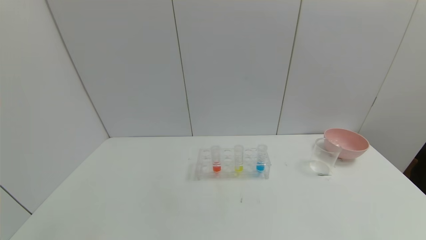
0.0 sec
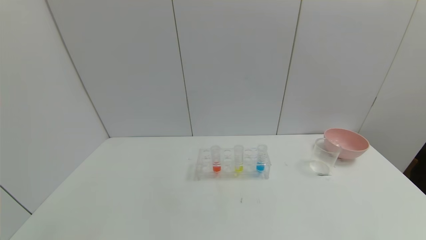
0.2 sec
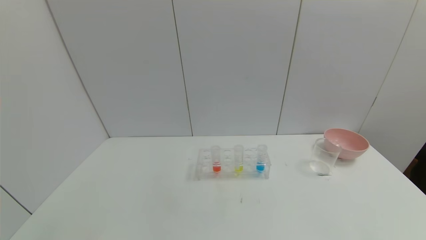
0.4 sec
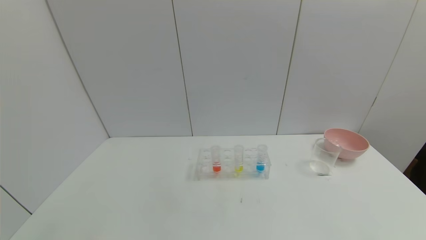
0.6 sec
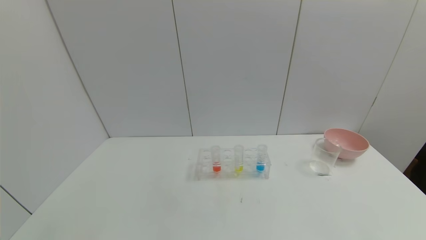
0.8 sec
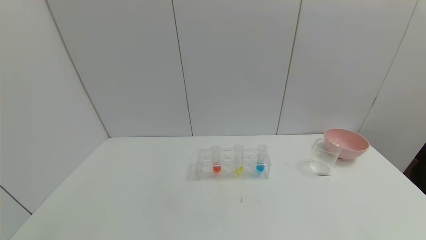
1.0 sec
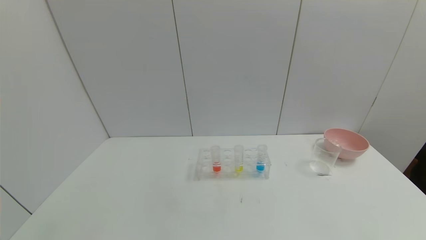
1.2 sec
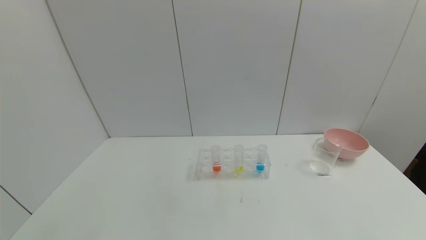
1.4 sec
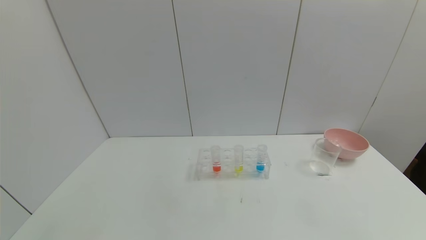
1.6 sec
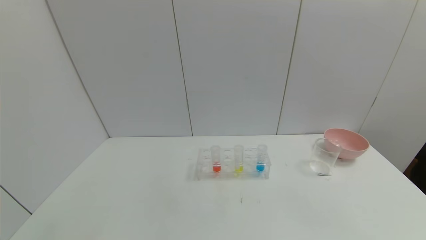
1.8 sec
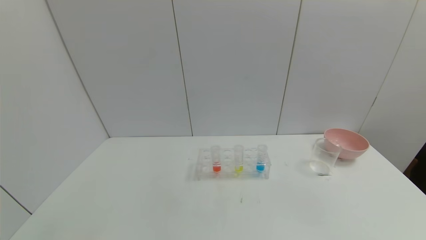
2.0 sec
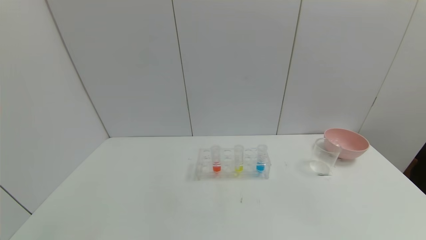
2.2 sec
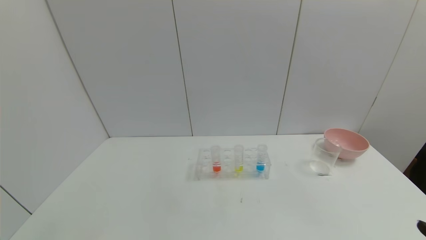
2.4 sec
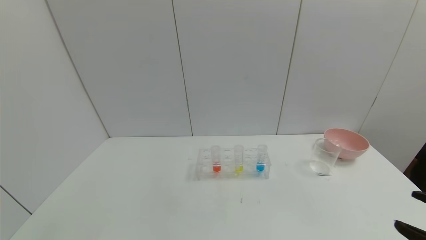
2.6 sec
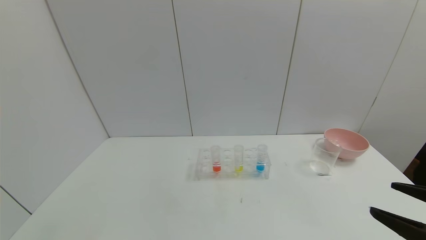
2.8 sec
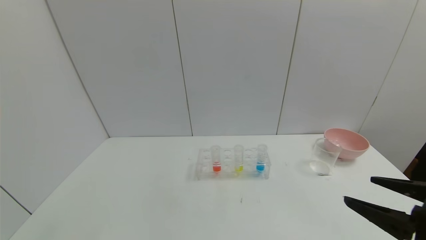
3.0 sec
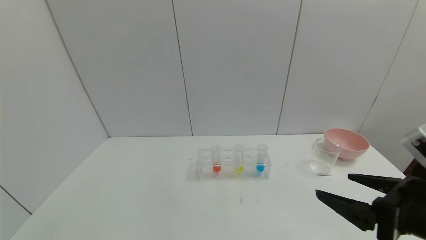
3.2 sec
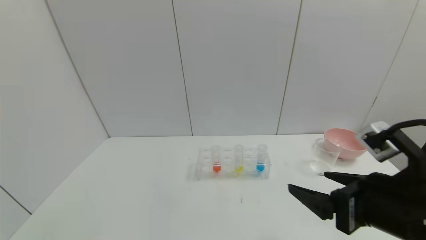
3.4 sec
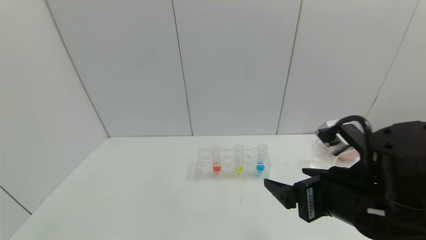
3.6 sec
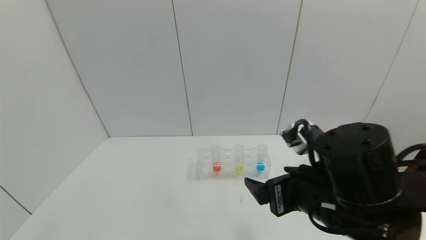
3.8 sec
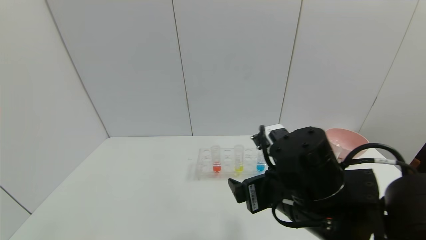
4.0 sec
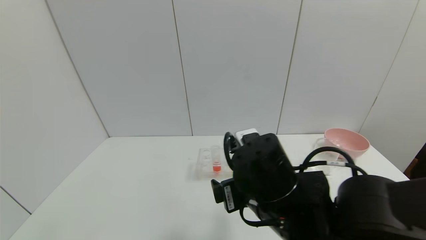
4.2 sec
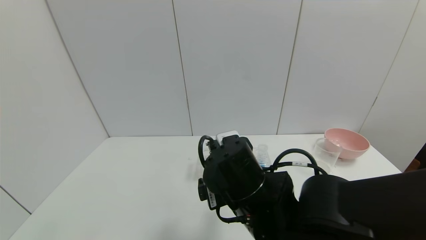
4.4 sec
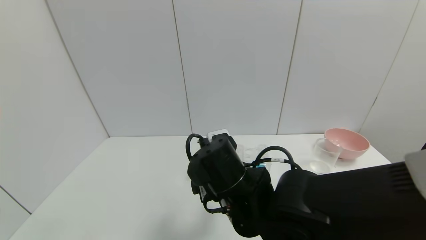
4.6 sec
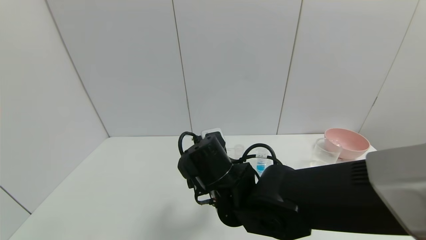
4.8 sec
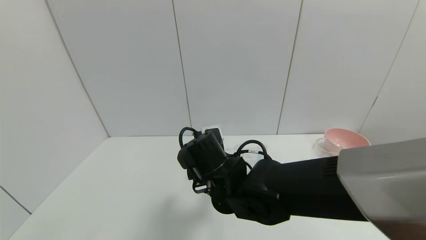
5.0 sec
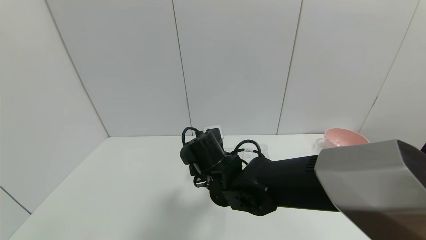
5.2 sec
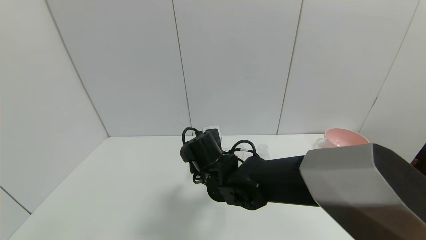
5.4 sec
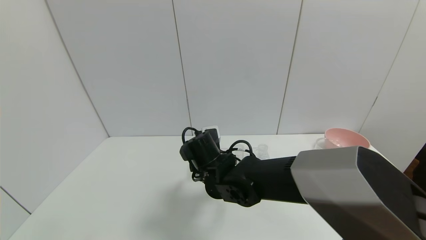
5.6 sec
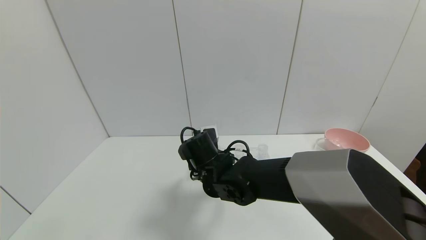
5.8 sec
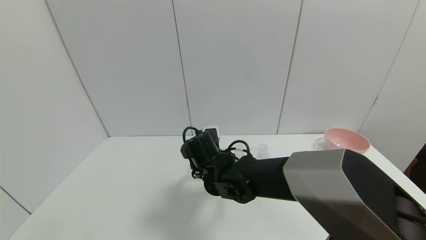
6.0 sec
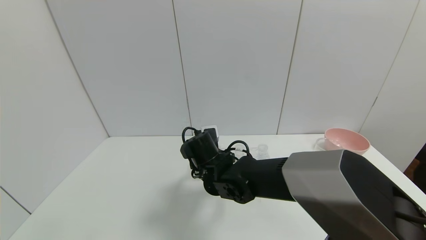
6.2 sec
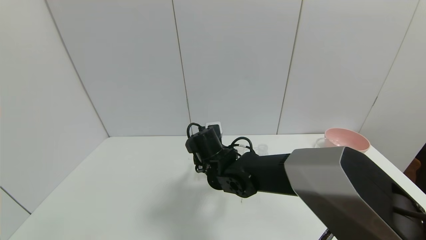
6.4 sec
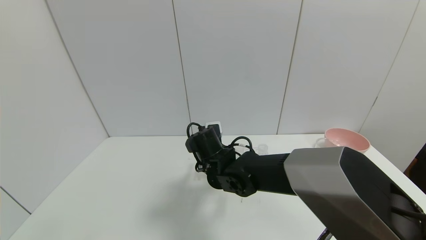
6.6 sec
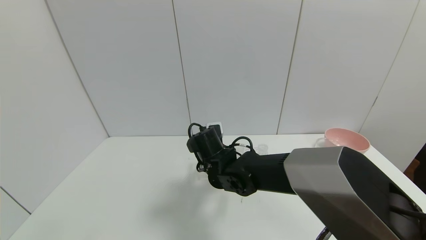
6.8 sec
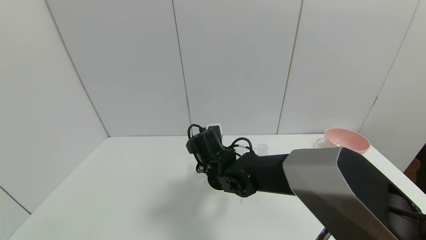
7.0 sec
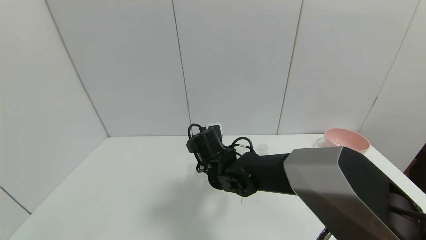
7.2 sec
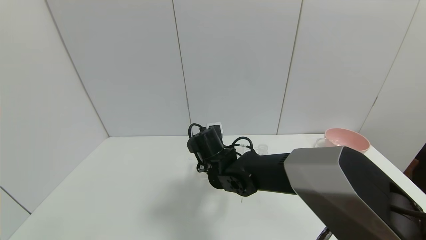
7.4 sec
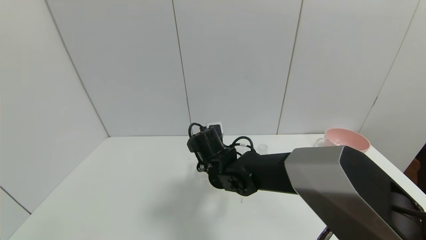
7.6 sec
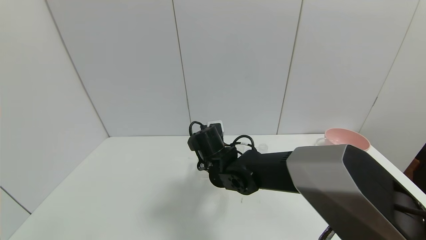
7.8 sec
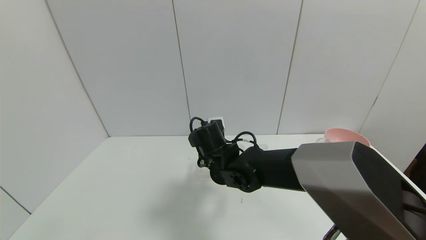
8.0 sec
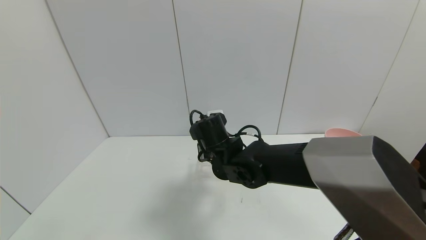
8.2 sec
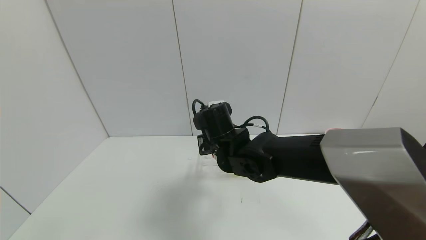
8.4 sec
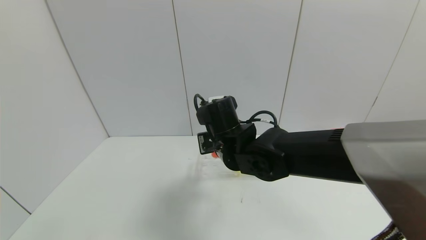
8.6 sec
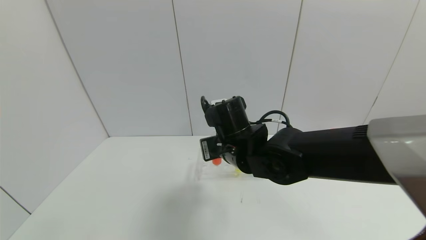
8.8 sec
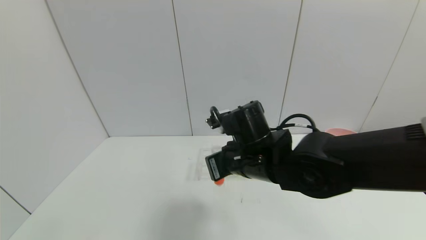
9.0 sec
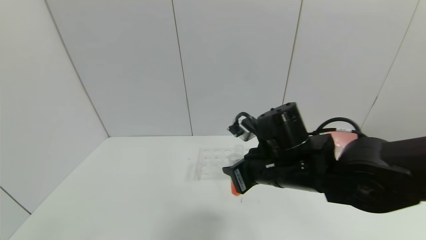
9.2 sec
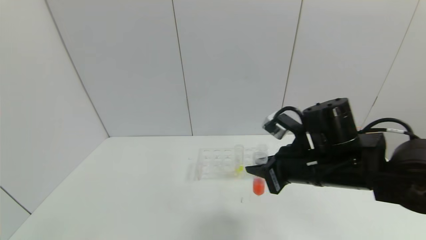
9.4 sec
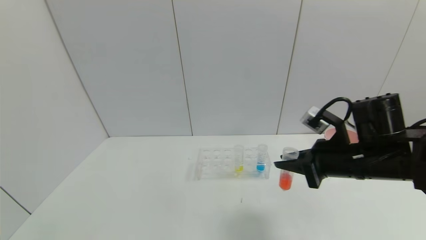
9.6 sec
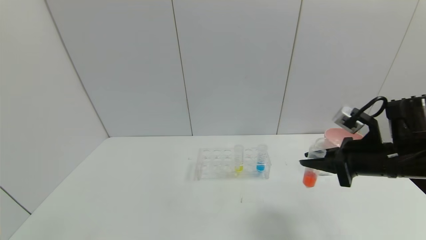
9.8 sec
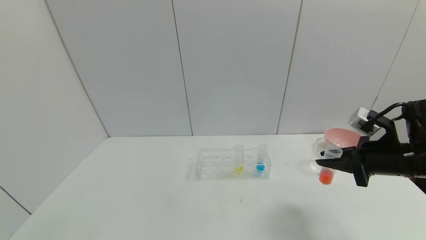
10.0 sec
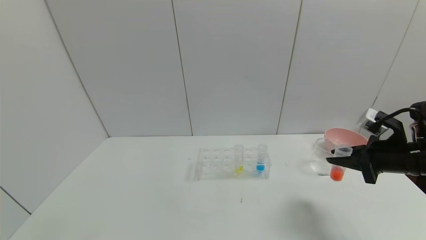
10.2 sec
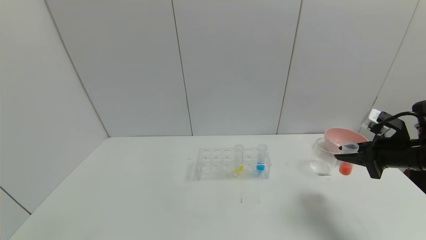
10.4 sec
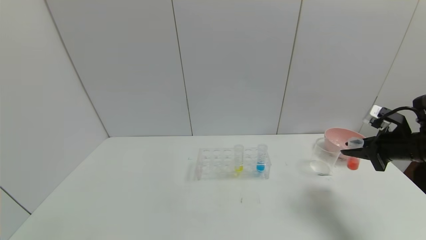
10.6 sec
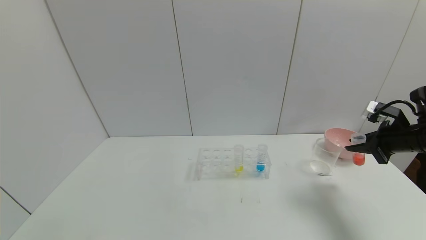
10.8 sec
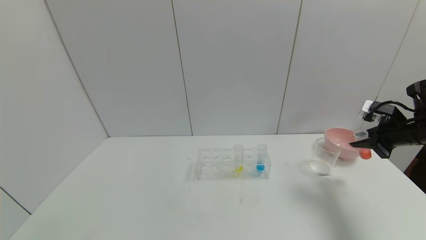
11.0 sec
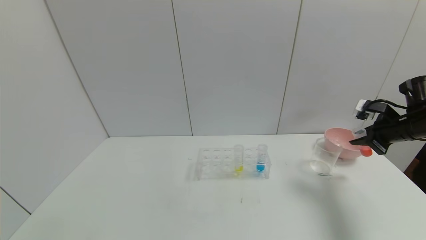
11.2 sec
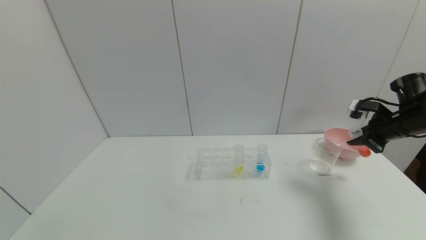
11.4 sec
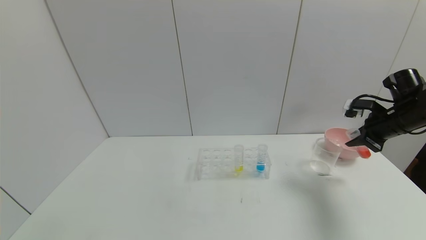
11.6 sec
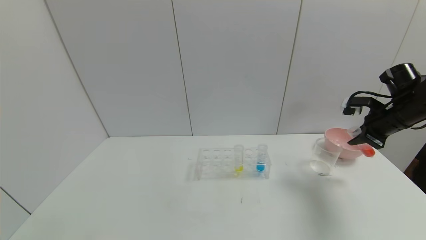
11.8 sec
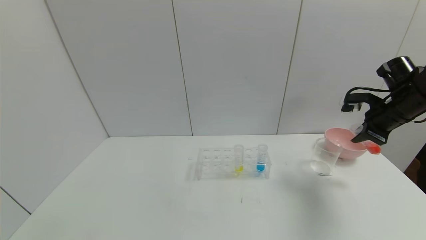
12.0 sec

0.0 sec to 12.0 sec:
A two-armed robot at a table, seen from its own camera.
Task of the whole recording: pick up the test tube with yellow pigment and the test tube with red pigment by grippers and pour them into the beaker.
Step, 0.0 sec to 7.0 sec: Grasp the red reagent with the right gripper.
1.6 sec to 3.0 sec: The right gripper is displaced forward, upward and to the left by some 20 cm.
3.0 sec to 4.4 sec: The right gripper heads to the left, covering roughly 25 cm.
4.4 sec to 6.0 sec: The right gripper goes some 15 cm forward, downward and to the left.
6.0 sec to 7.6 sec: The right gripper closes its fingers.
7.6 sec to 9.0 sec: The right gripper travels upward, backward and to the right by some 15 cm.
9.0 sec to 10.4 sec: The right gripper goes some 30 cm to the right.
10.4 sec to 12.0 sec: The right gripper travels forward and upward by roughly 10 cm.

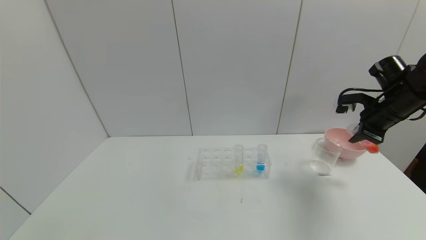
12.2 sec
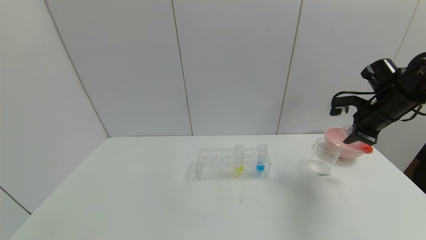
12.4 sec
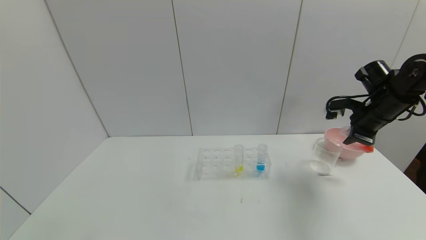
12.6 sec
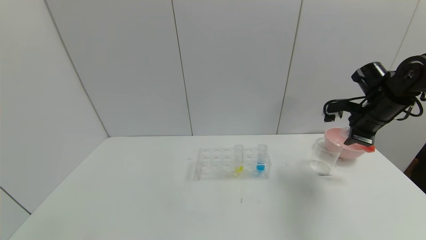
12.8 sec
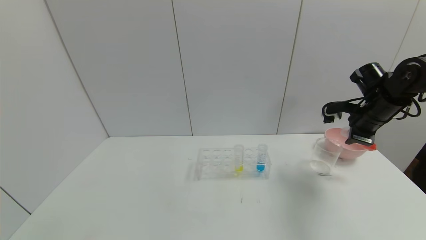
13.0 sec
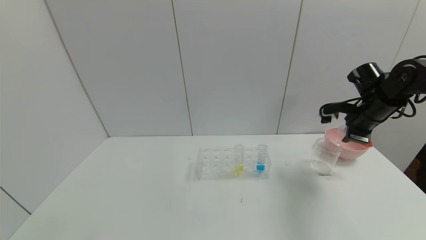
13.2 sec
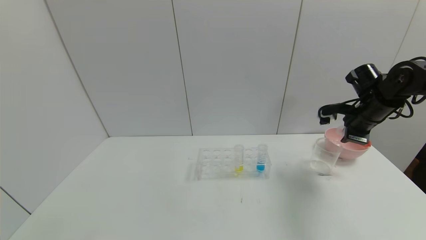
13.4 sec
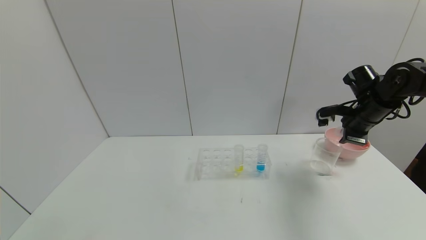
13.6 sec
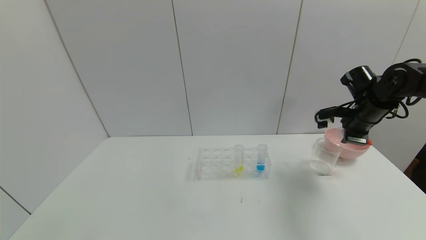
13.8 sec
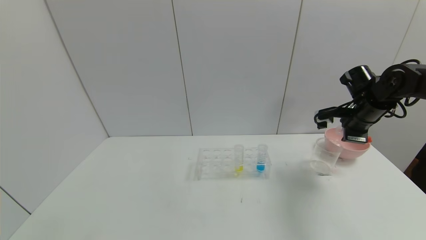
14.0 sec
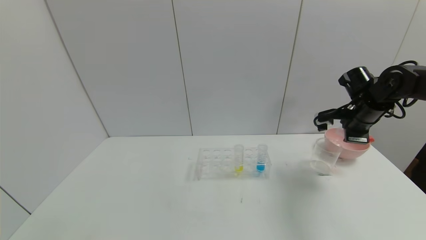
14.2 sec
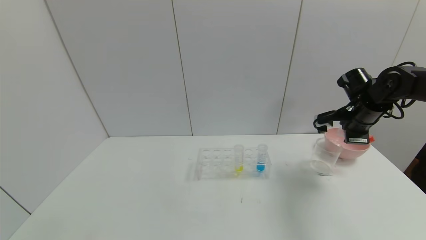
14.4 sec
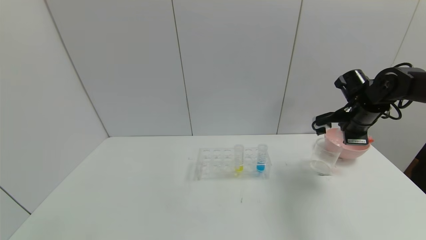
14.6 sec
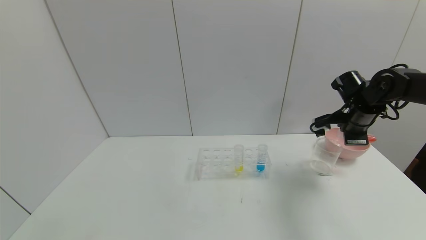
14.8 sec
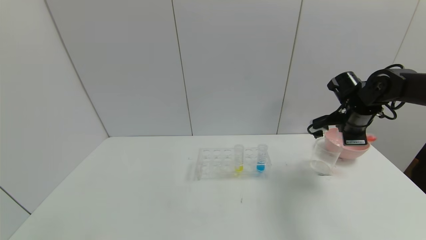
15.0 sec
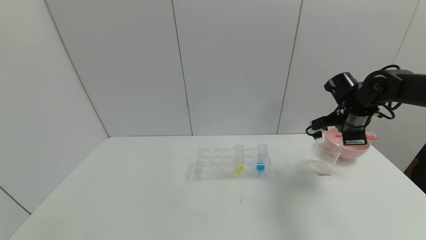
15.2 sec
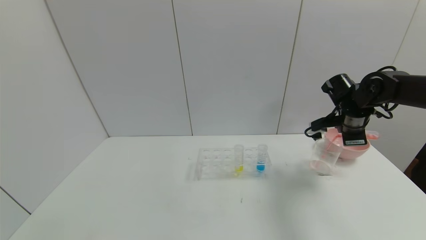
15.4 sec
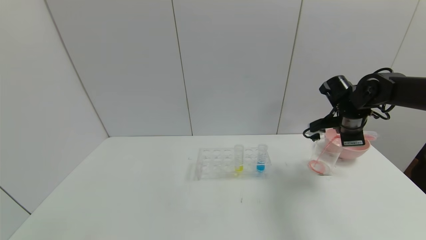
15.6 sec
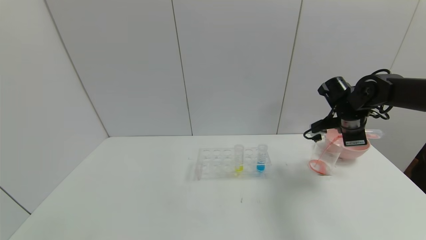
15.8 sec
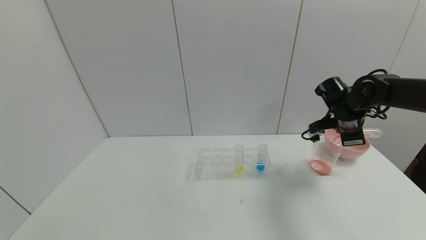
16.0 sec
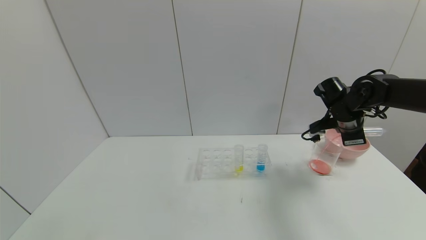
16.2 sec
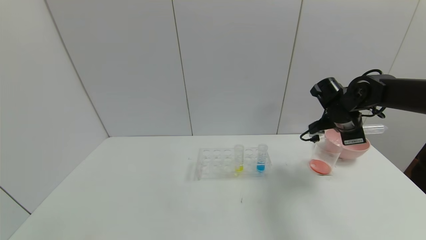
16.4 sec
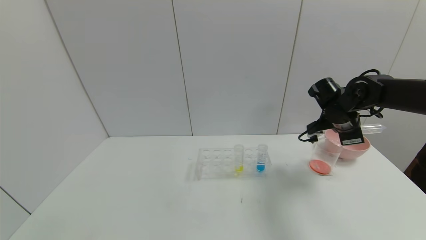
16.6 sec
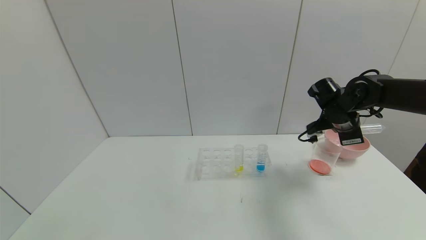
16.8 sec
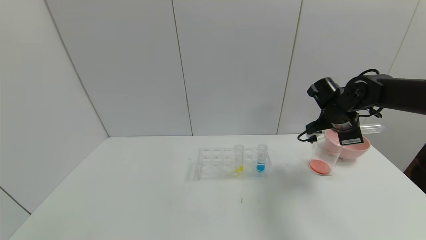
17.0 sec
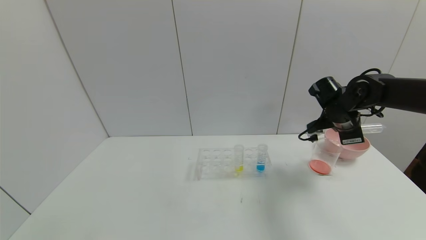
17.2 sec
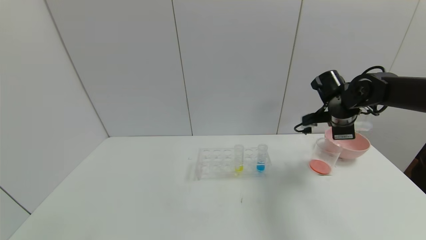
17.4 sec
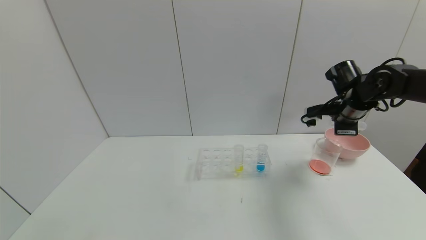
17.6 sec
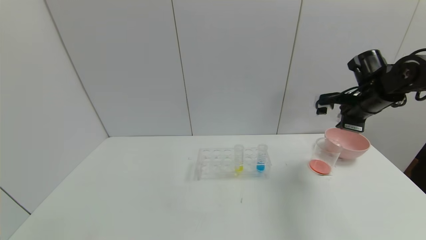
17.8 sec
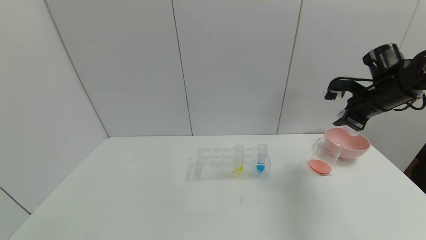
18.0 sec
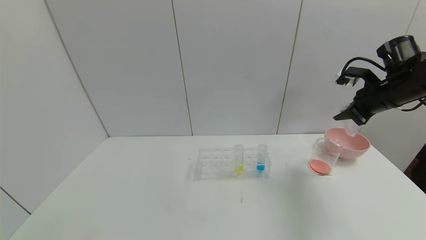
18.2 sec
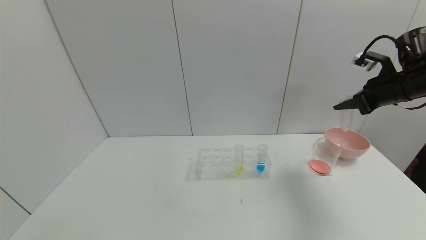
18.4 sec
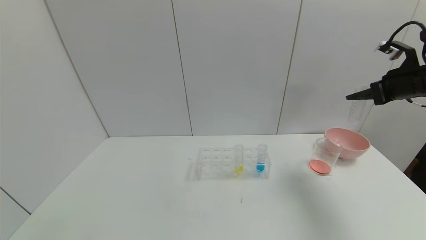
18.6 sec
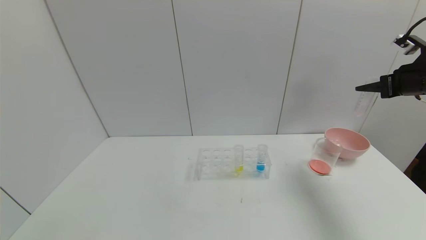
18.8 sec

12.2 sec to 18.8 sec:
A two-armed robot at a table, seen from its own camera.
Task of the whole recording: pick up the test tube with yellow pigment and the test tube with red pigment by grippers and pour them into the beaker.
Step, 12.2 sec to 17.2 sec: Pour the red reagent into the graduated cylinder with the right gripper.
12.2 sec to 13.8 sec: The grippers move only a little.
15.4 sec to 17.2 sec: There are only small adjustments of the grippers.
17.2 sec to 18.8 sec: The right gripper goes approximately 15 cm to the right and upward.
